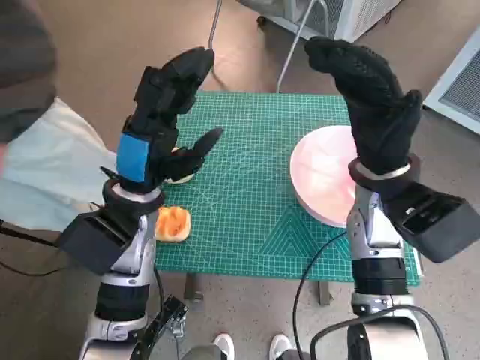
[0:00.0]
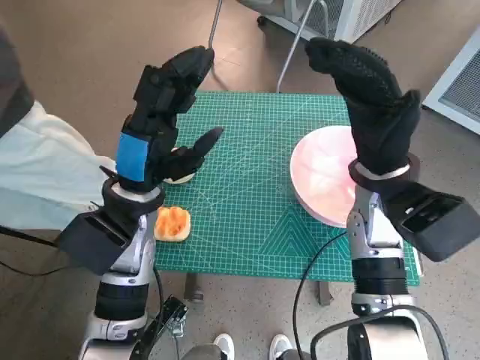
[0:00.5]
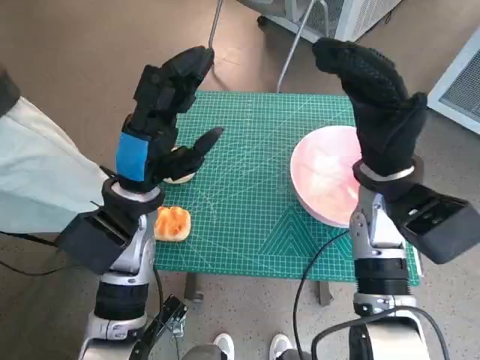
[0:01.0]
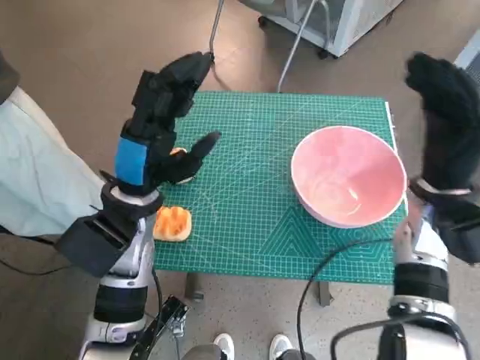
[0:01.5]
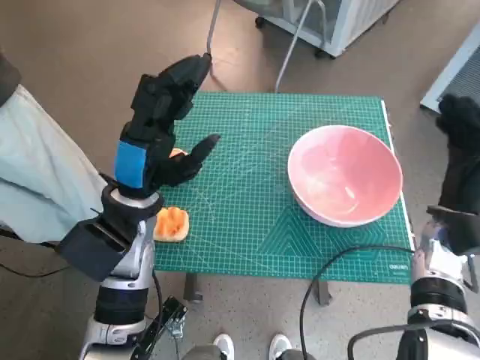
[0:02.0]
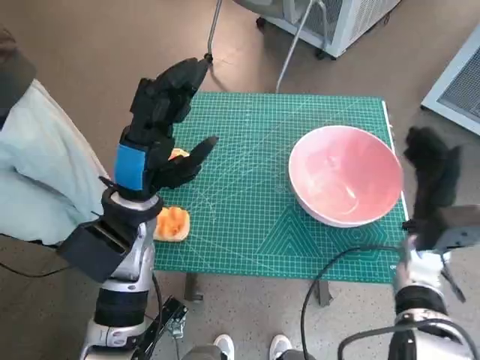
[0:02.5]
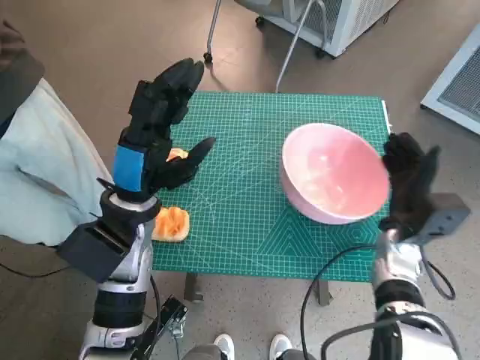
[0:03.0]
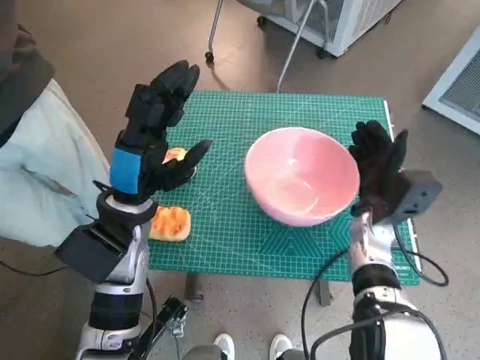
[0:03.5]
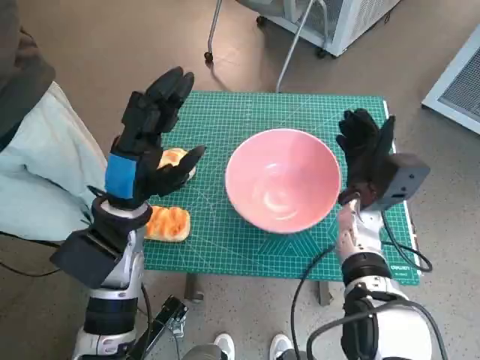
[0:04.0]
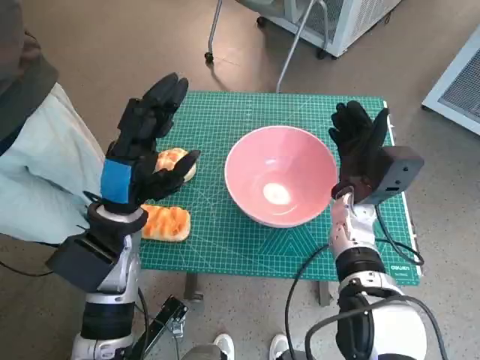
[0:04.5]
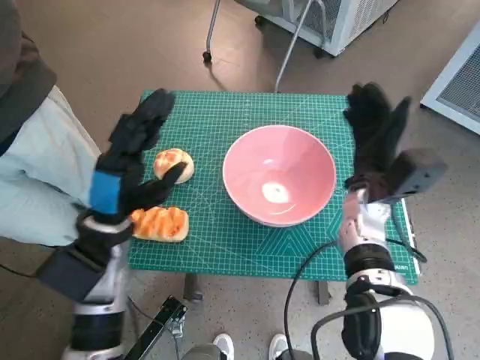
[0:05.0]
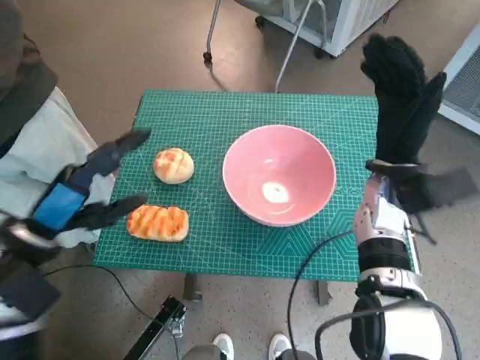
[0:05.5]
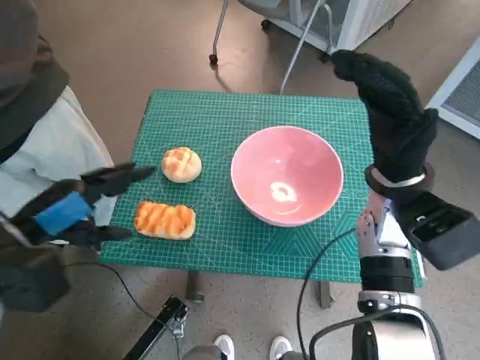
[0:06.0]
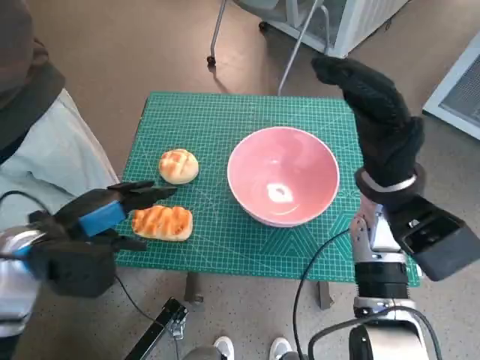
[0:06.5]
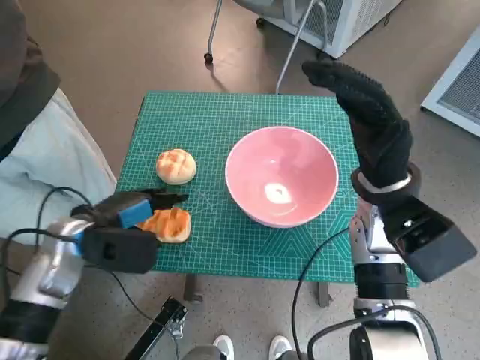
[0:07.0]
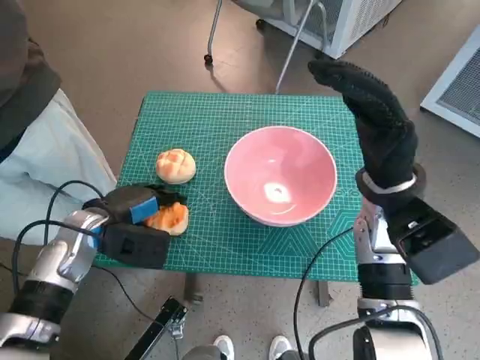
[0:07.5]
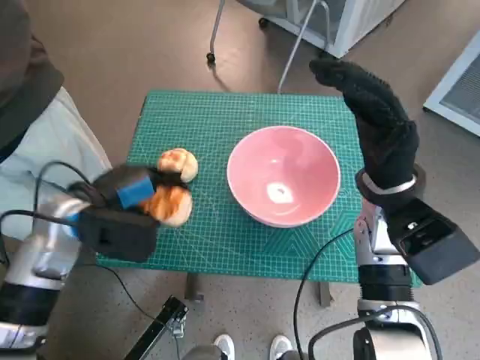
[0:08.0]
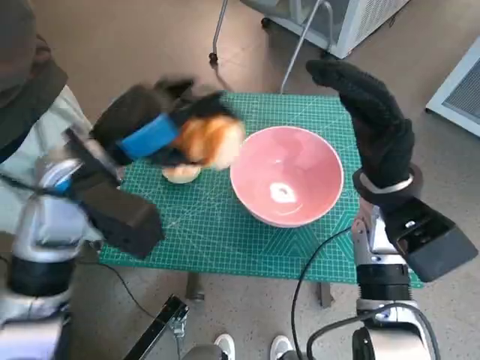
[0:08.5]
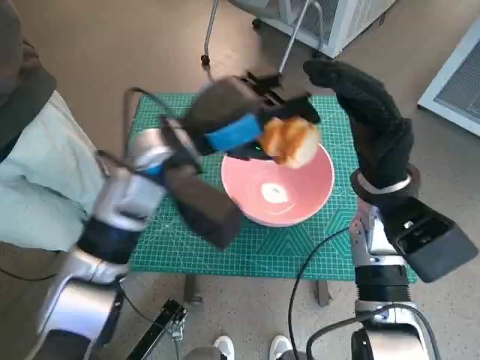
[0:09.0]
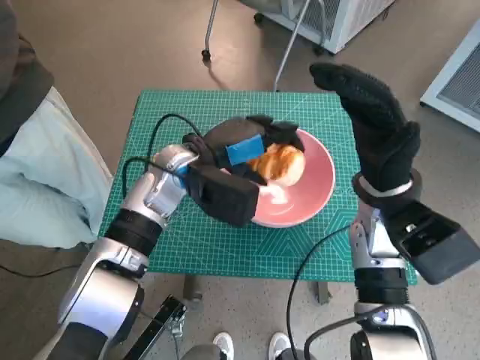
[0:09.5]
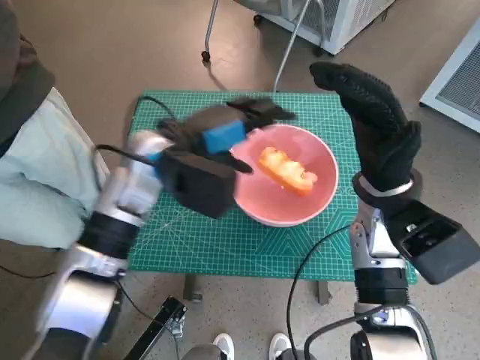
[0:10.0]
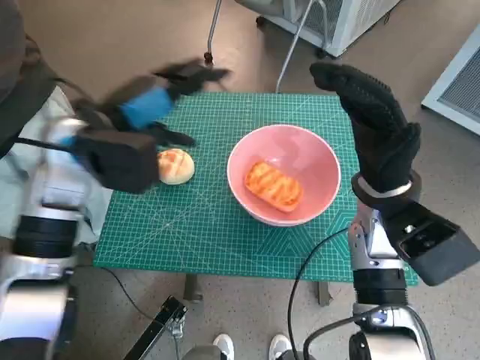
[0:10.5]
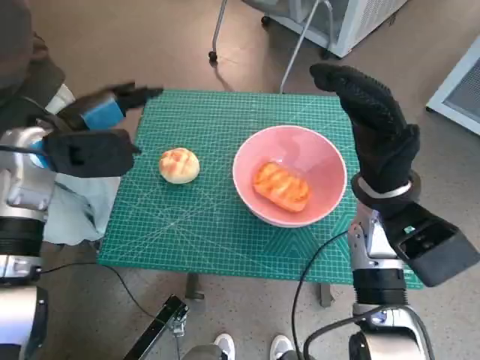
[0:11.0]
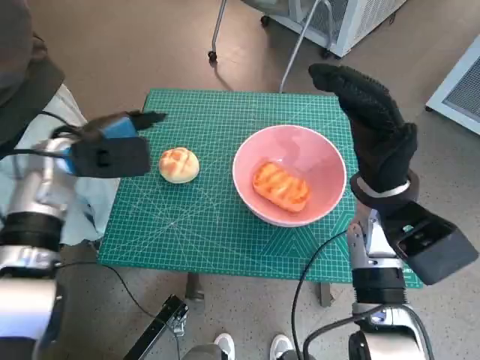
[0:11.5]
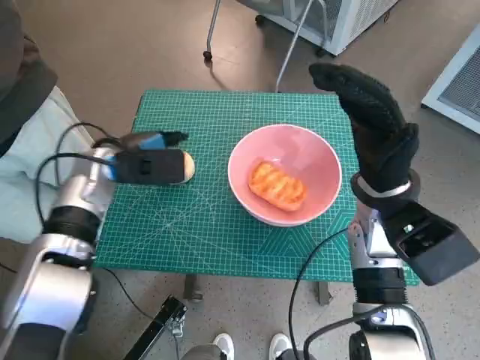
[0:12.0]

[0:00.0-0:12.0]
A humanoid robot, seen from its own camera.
Task of the whole recording: Push the bowl to the center of the table and put the bread into the bowl.
Step, 0:00.0 to 0:03.5: Move the pink bowl to the center of table with right hand.
Step, 0:04.5 to 0:07.0: Grasp the long bread with left hand.
Step, 0:08.0 to 0:10.0: Place the long bread in pink bowl with left hand.
0:02.0 to 0:04.0: The right hand goes roughly 10 cm to the left.
0:04.0 to 0:06.0: The left hand travels to the left and backward by approximately 10 cm, while the right hand heads upward, covering roughly 10 cm.
0:06.0 to 0:08.0: The left hand moves forward, roughly 5 cm.
0:08.0 to 0:10.0: The left hand shifts some 15 cm to the right and forward.
0:10.0 to 0:12.0: The left hand moves to the left, some 10 cm.

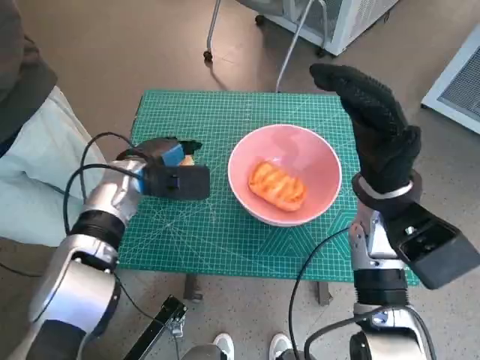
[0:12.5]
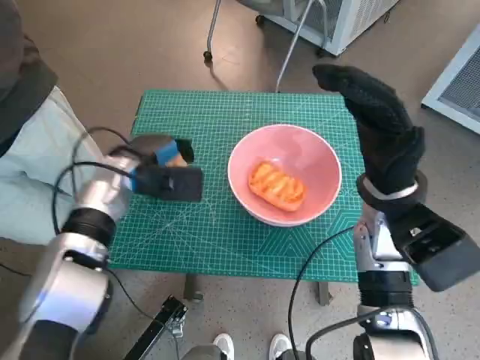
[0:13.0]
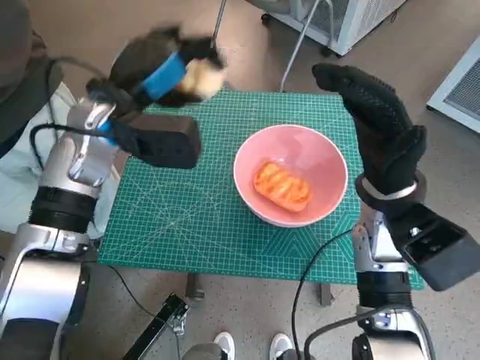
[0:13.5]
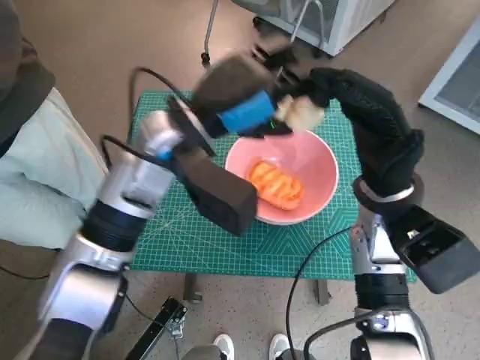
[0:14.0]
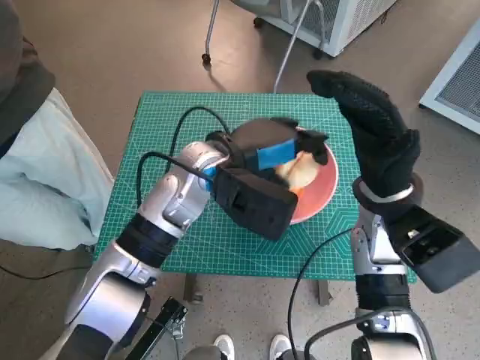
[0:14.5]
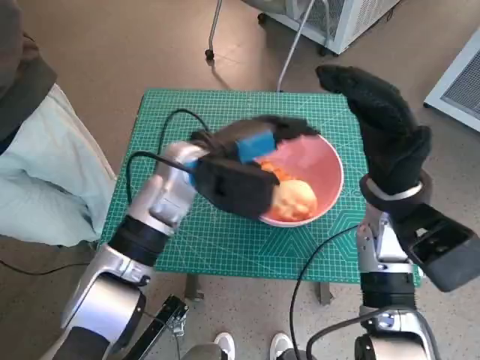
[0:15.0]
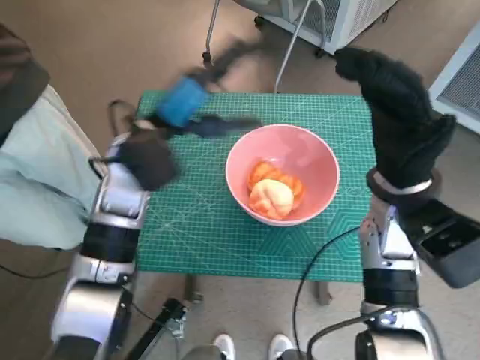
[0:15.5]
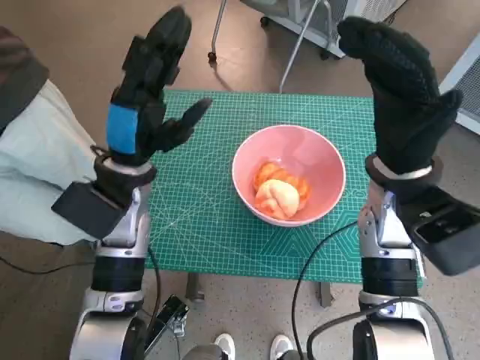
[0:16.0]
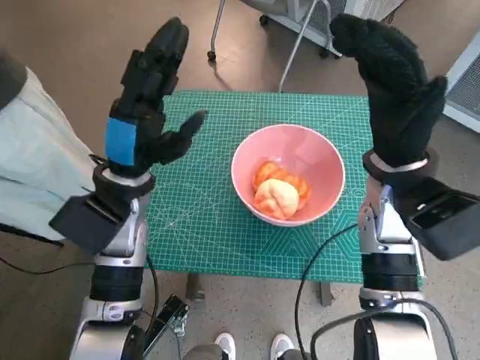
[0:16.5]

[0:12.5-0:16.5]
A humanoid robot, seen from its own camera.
Task of the whole recording: Push the bowl to the center of the table and put the bread into the bowl.
Step, 0:13.0 to 0:14.5: Place the round bread in pink bowl with left hand.
0:12.5 to 0:14.5: The left hand goes some 15 cm to the right and upward.
0:14.5 to 0:16.5: The left hand goes approximately 10 cm to the left.
